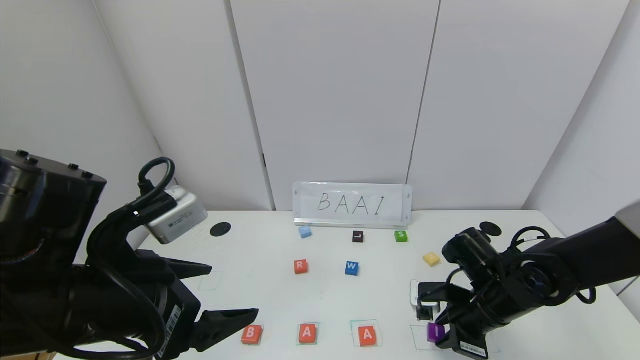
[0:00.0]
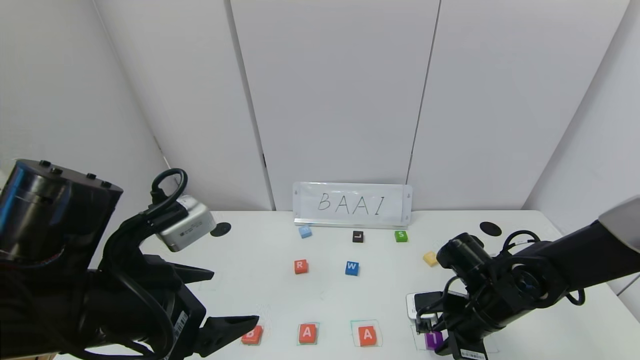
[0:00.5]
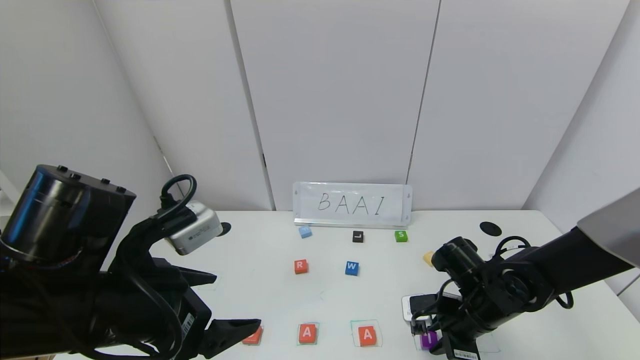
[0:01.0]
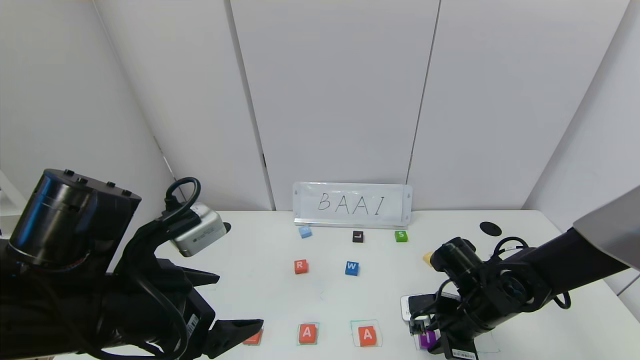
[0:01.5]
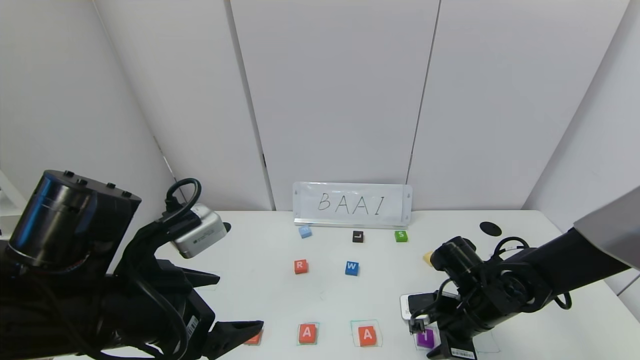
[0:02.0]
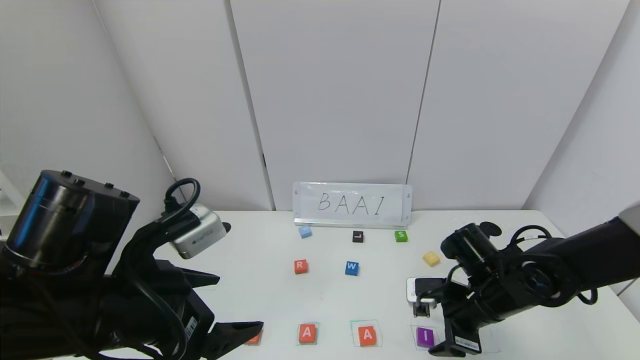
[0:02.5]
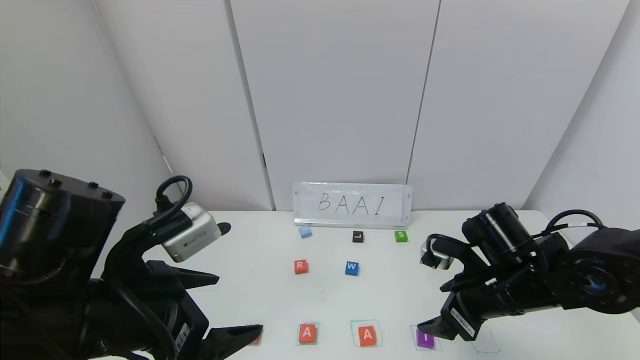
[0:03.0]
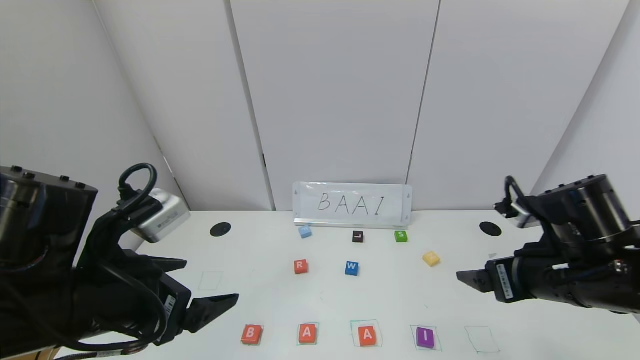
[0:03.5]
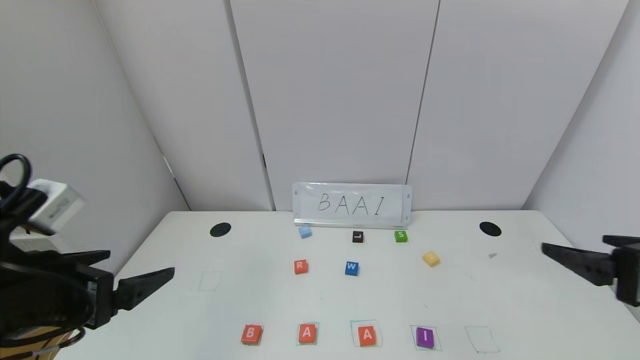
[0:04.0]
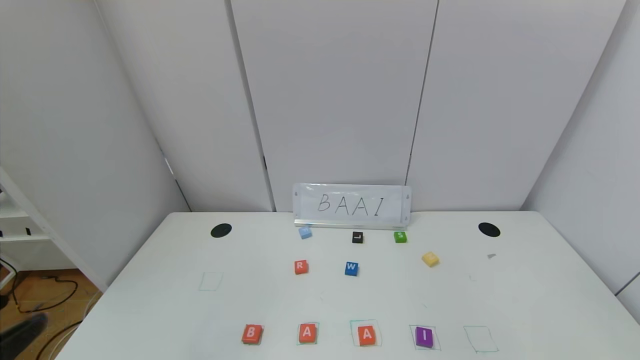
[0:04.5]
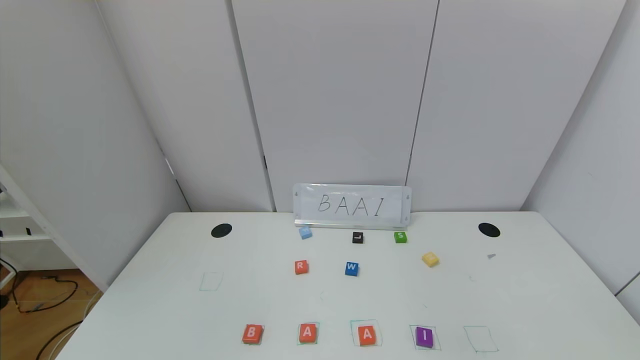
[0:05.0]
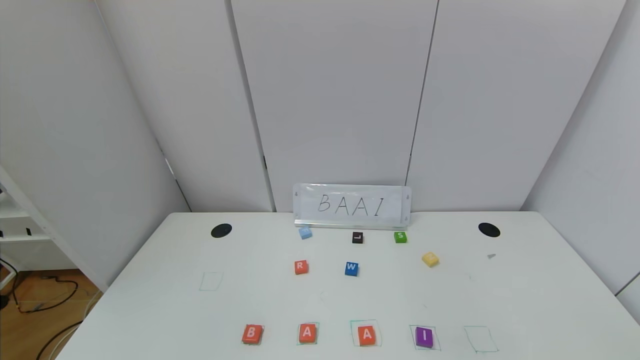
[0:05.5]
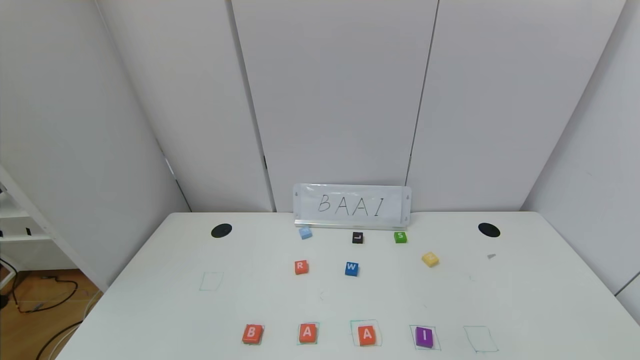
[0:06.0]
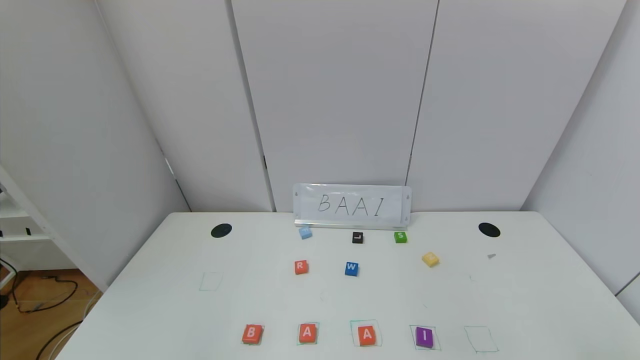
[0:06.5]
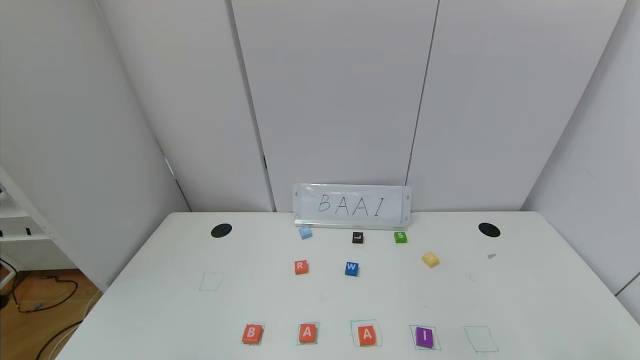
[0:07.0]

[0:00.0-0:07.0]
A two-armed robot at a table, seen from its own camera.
Task of the whole recording: use the gripper to find blocks with the letters b, a, a, and i on the table and arrange them into BAAI, then find r and N and turn the arranged baai into brian.
Step, 0:00.0 to 0:02.0: Place the block I in the fourth location.
0:00.0 to 0:02.0: The right gripper opens up.
0:02.0 to 0:03.5: The right gripper is displaced upward and backward by approximately 15 cm, and opens up.
0:03.5 to 0:05.0: The grippers both shift backward by about 25 cm.
